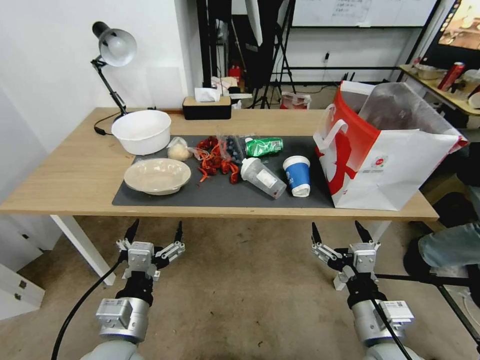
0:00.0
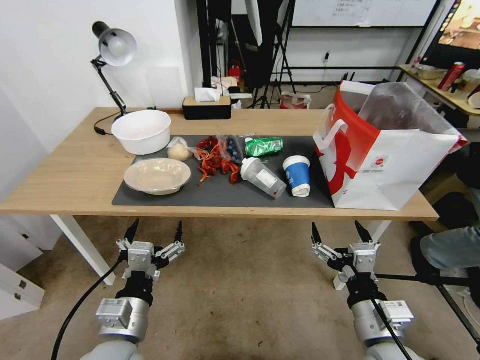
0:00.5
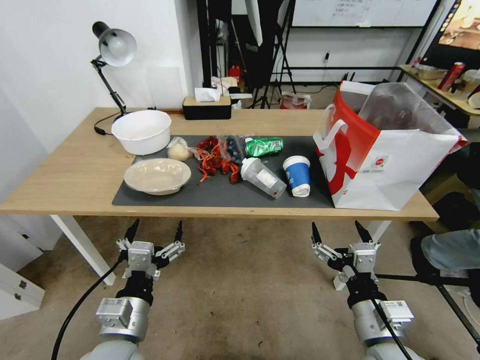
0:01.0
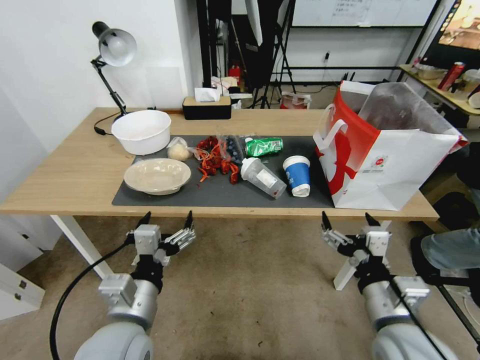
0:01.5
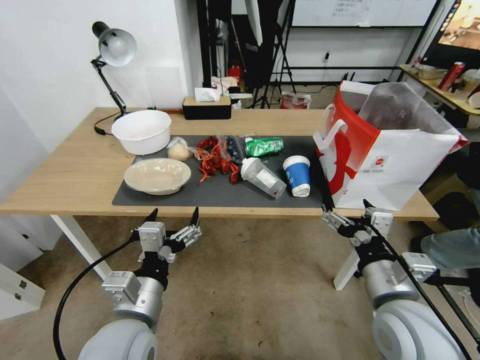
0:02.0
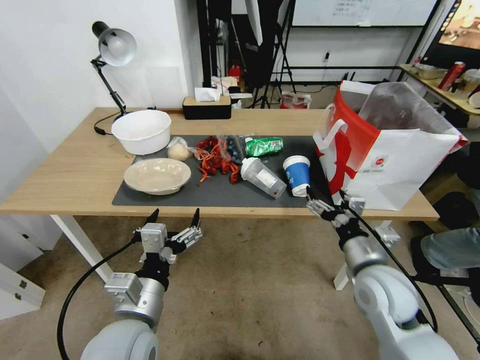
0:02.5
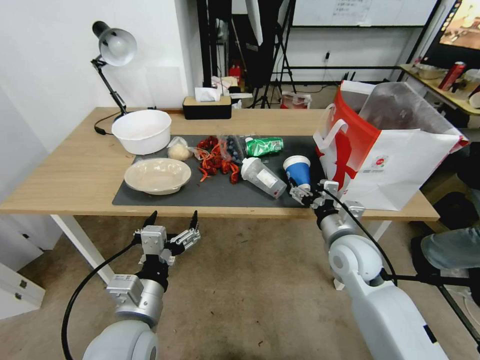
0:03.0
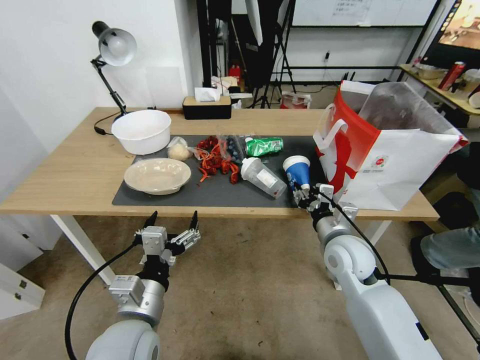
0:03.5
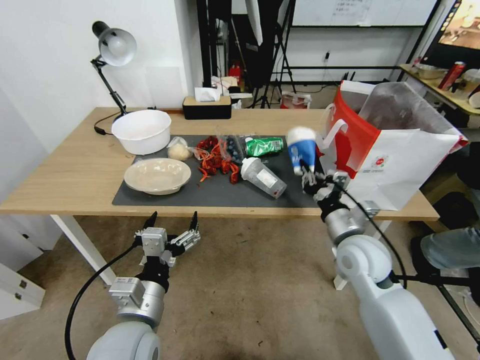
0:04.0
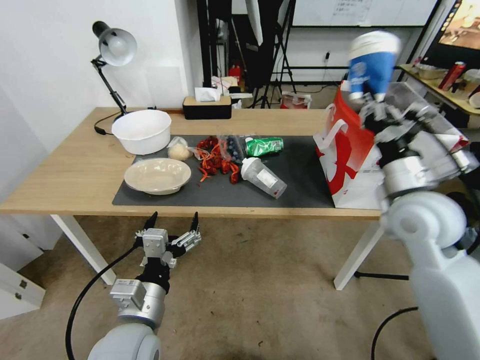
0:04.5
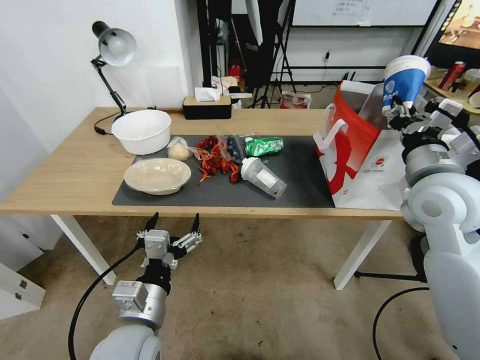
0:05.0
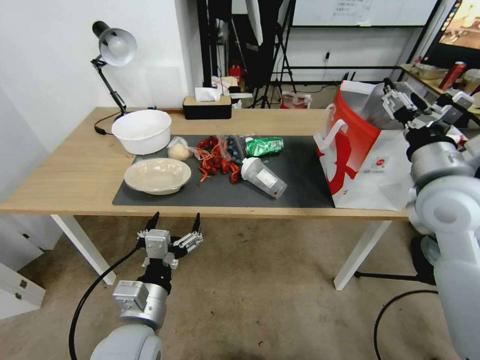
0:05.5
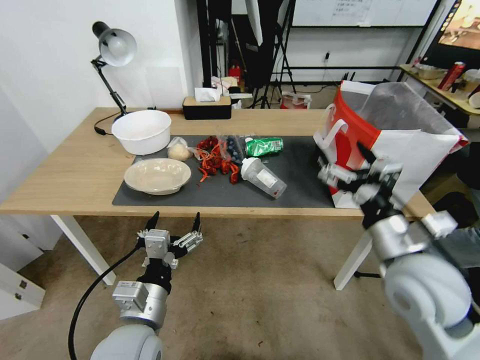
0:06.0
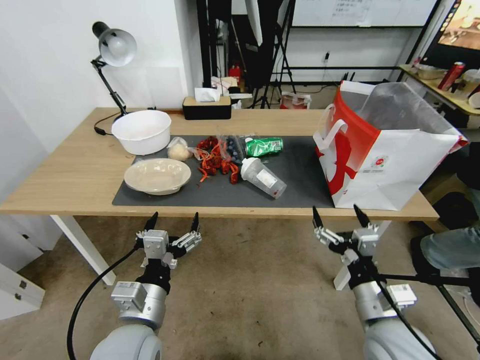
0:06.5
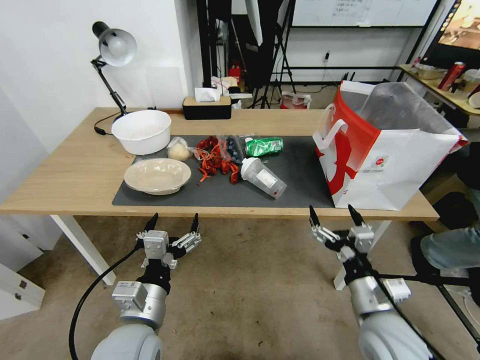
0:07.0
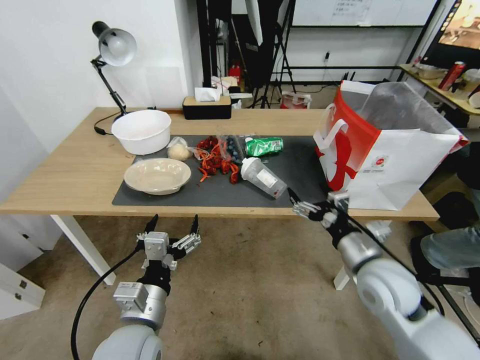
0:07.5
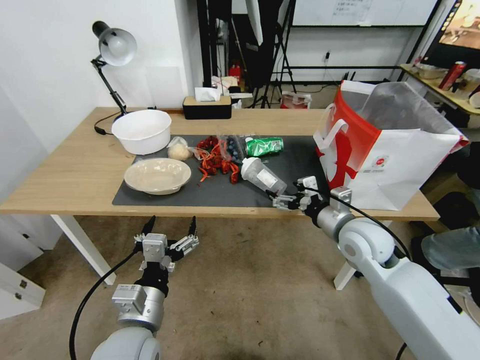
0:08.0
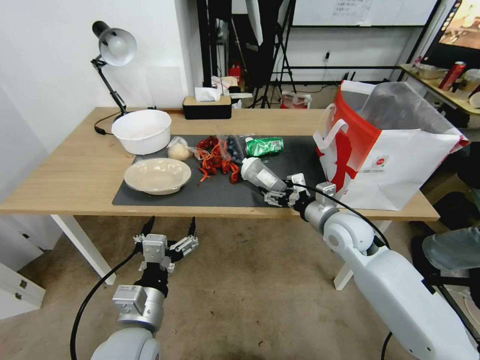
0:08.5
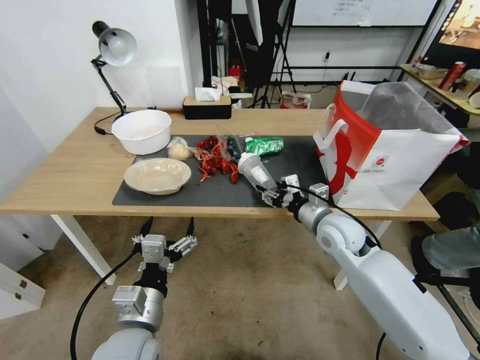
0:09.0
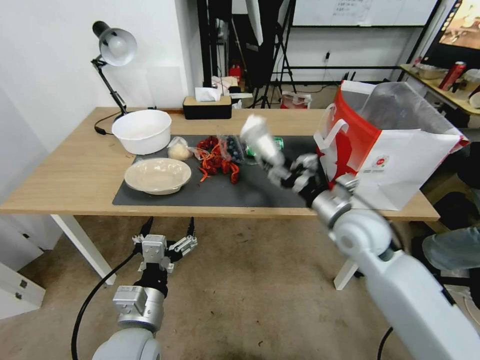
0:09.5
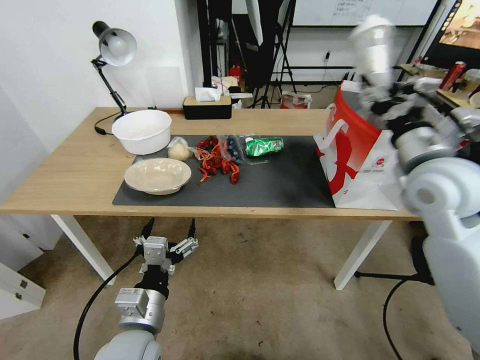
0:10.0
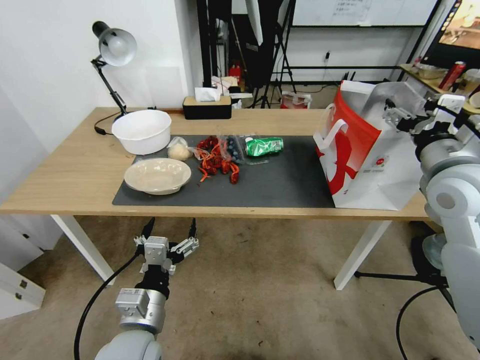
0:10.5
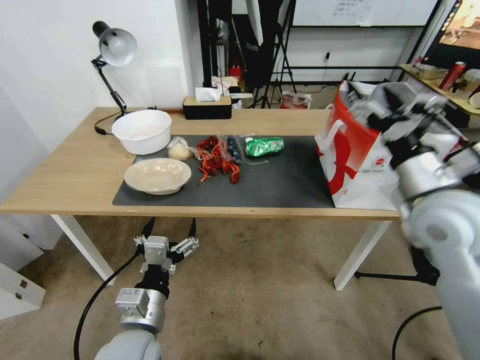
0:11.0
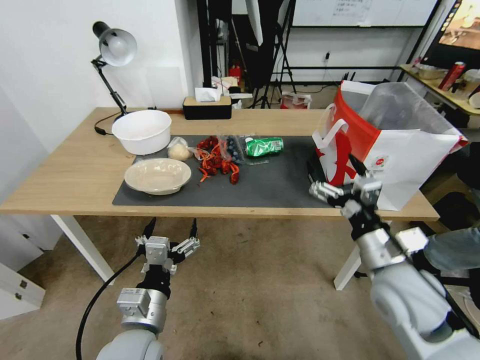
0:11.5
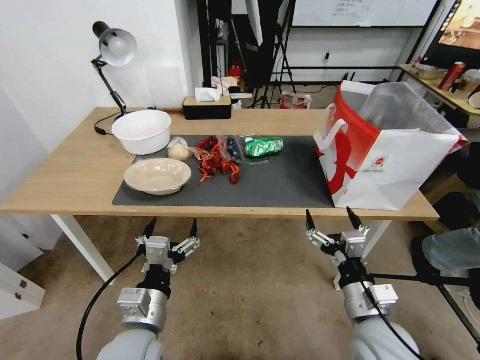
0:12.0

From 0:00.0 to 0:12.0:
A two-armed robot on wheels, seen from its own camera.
From 0:02.0 to 0:04.0: The right gripper is displaced forward by about 15 cm, and closes up.
From 0:04.0 to 0:06.0: The right gripper is displaced upward and backward by some 10 cm, and opens.
From 0:06.0 to 0:08.0: The right gripper moves forward and downward, approximately 10 cm.
From 0:08.0 to 0:10.0: The right gripper travels upward by approximately 15 cm, and closes.
From 0:10.0 to 0:12.0: The right gripper moves downward and backward, approximately 30 cm, and opens up.

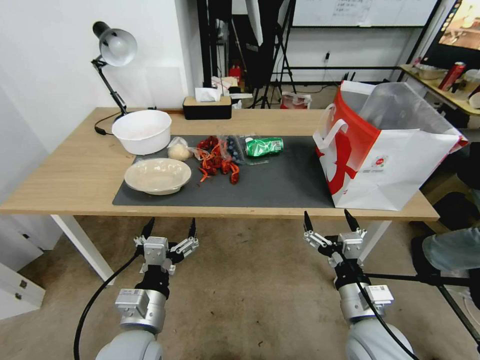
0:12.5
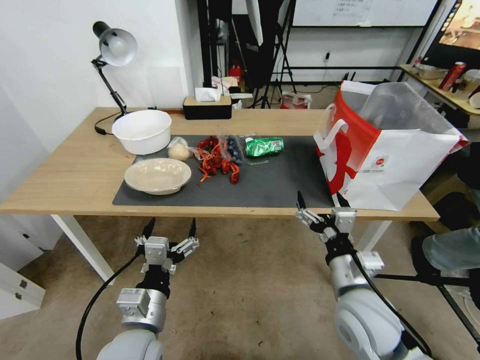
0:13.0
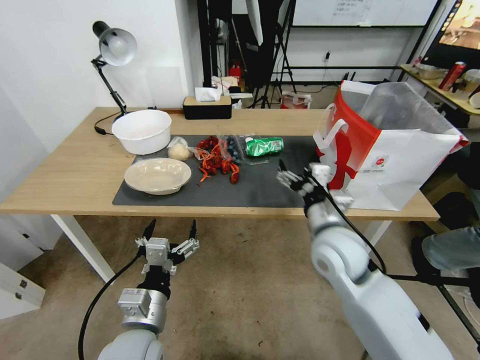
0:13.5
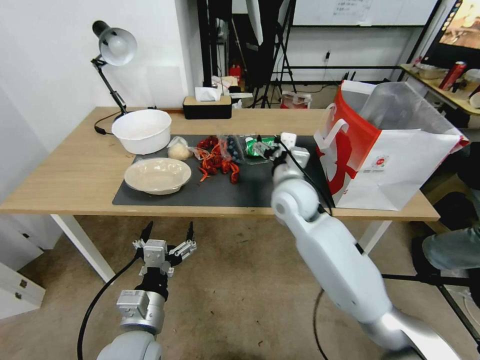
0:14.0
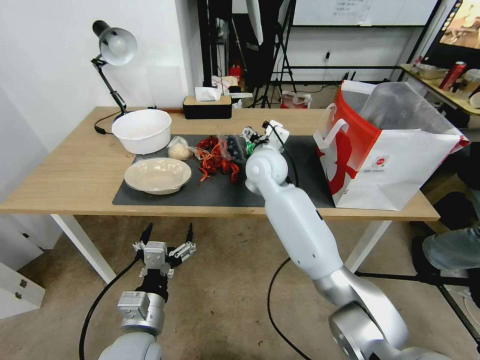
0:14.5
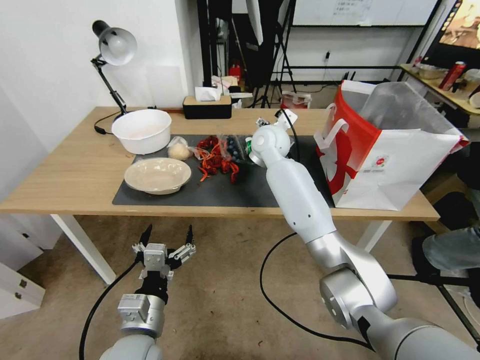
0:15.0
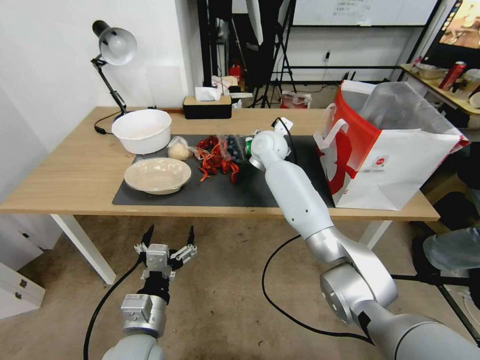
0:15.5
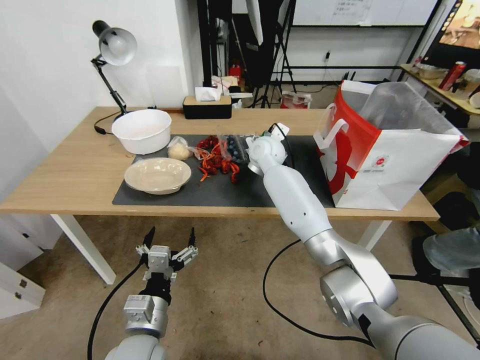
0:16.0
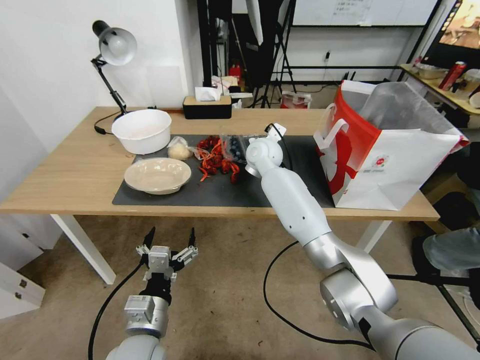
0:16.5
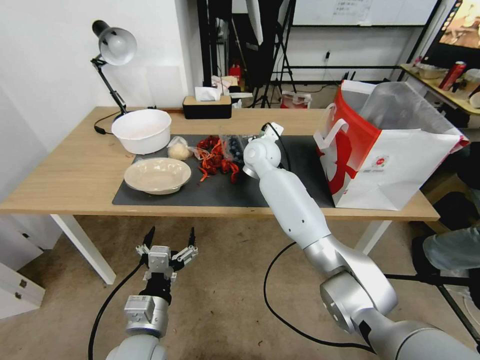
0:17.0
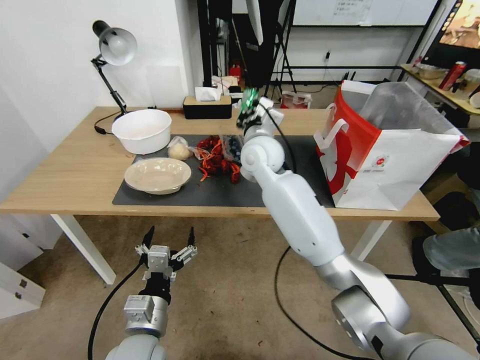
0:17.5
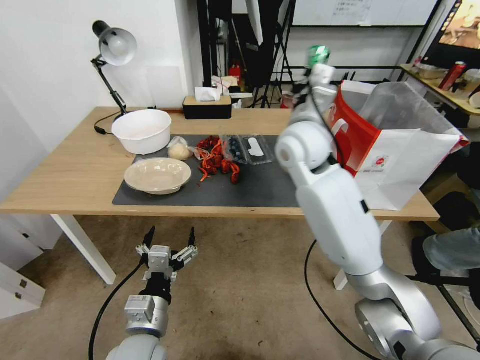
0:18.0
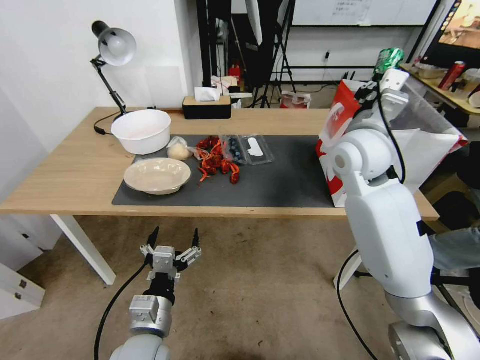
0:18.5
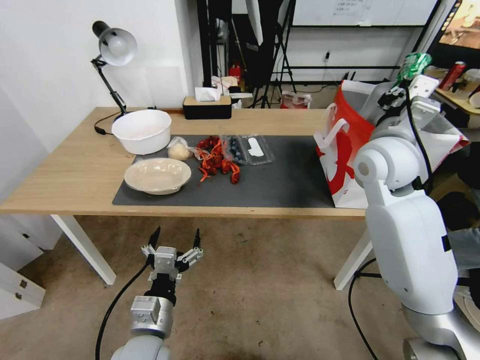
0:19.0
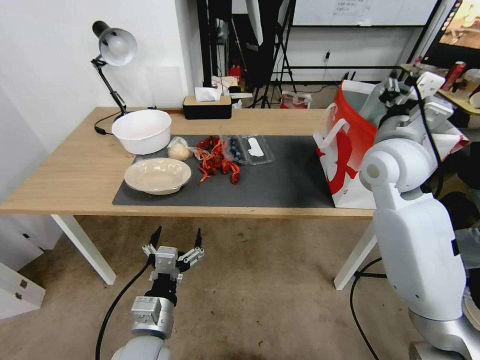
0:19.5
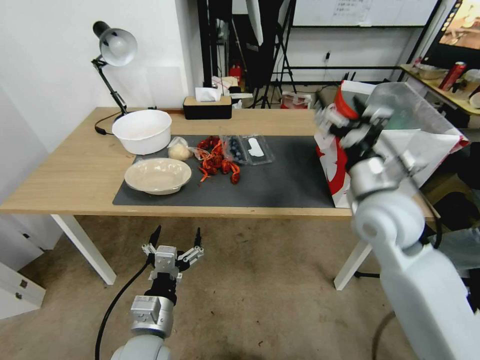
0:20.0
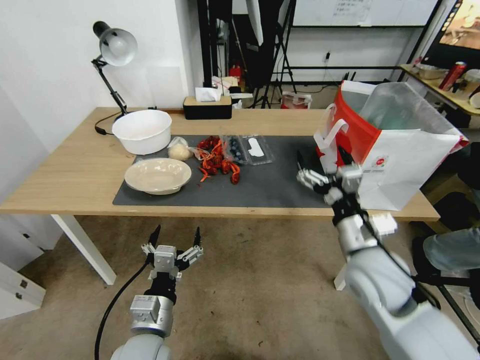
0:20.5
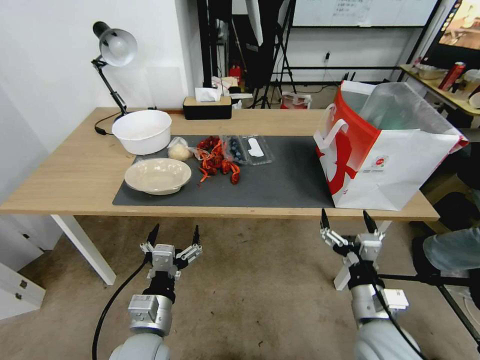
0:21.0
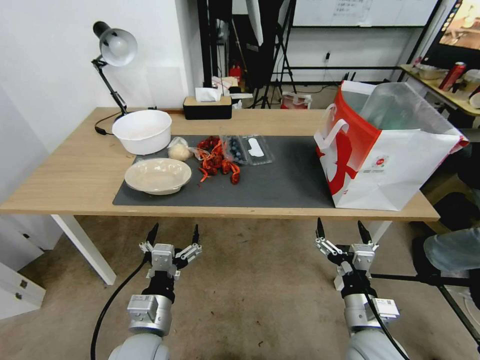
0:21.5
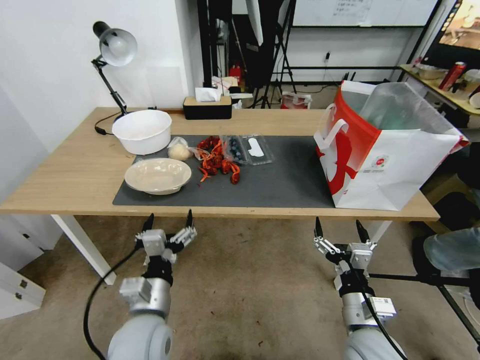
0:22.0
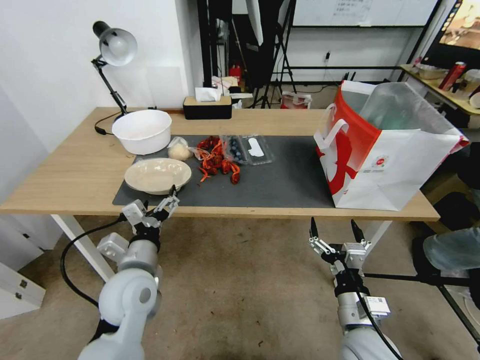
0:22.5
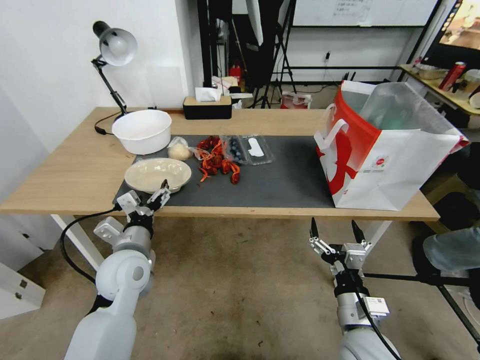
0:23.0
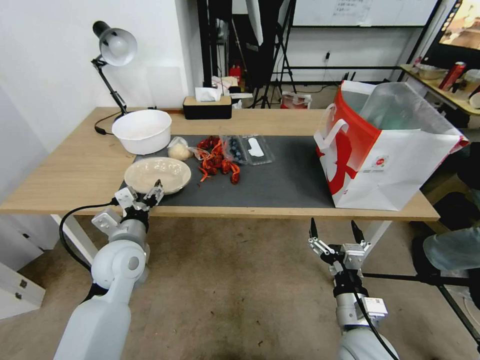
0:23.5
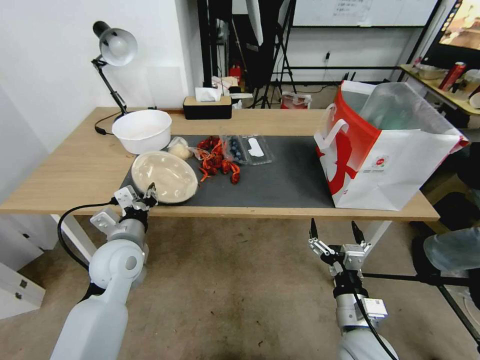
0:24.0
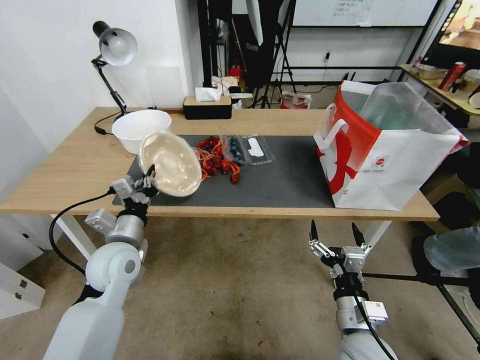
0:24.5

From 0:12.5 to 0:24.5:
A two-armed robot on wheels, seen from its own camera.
From 0:12.5 to 0:14.5: The right gripper shifts about 40 cm forward, to the left and upward.
From 0:14.5 to 0:16.5: The right gripper is displaced forward by approximately 10 cm, and closes up.
From 0:16.5 to 0:18.5: The right gripper goes roughly 25 cm to the right, backward and upward, and closes.
From 0:18.5 to 0:20.5: The right gripper goes approximately 25 cm backward and downward, and opens.
From 0:20.5 to 0:22.5: The left gripper travels forward and upward by some 10 cm; the right gripper is displaced downward and backward by approximately 15 cm.
From 0:22.5 to 0:24.5: The left gripper moves forward, about 5 cm, and closes up.

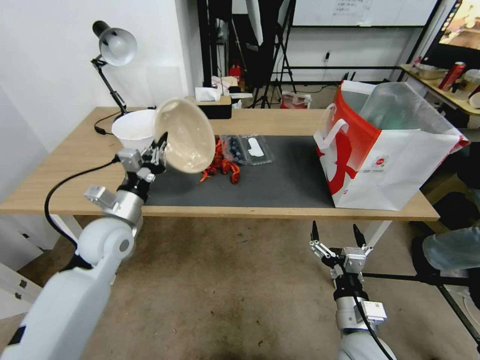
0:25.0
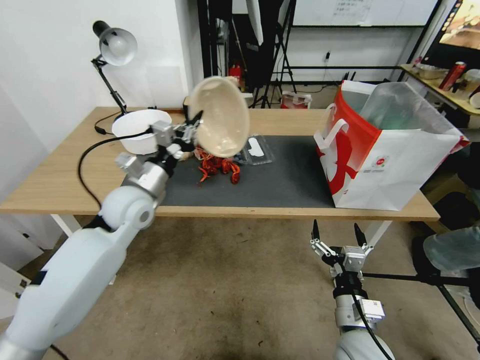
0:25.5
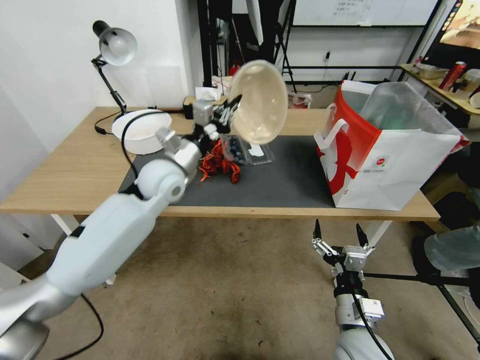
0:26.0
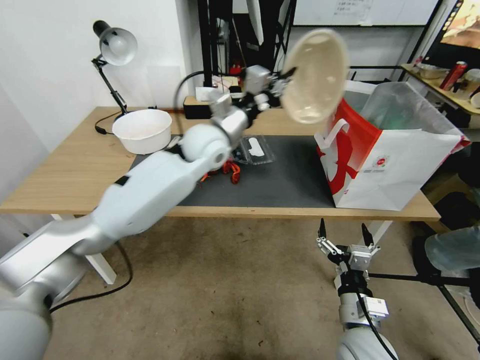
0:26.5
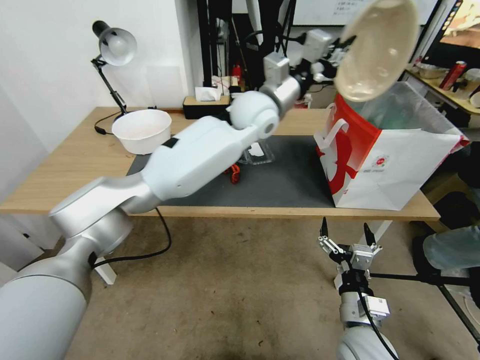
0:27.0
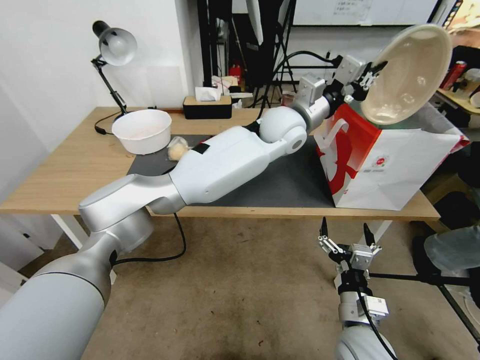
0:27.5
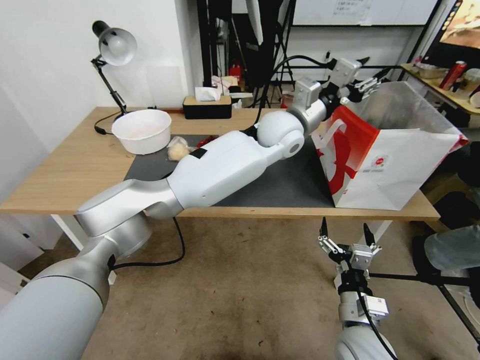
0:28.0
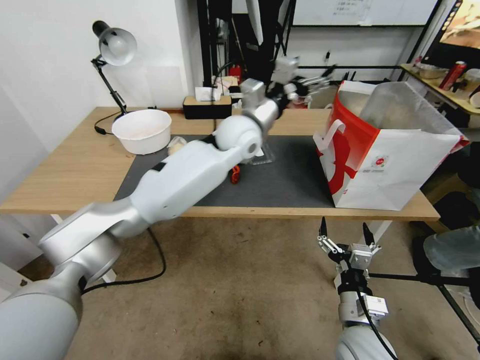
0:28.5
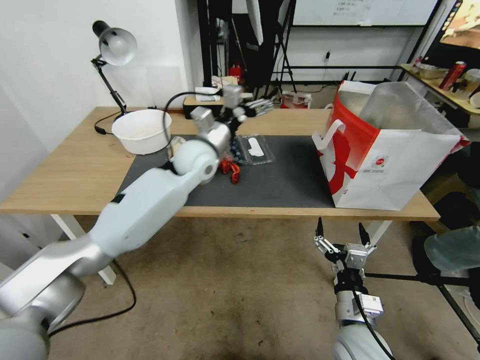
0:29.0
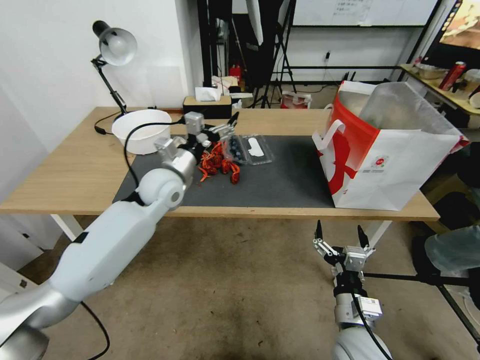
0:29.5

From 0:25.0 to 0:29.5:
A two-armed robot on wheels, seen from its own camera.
From 0:25.0 to 0:27.0: The left gripper travels to the right, upward and forward by about 40 cm.
From 0:27.0 to 0:29.5: The left gripper goes about 25 cm to the left and downward, and opens.
